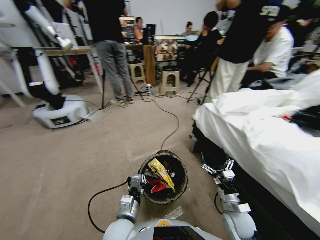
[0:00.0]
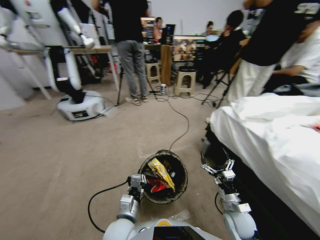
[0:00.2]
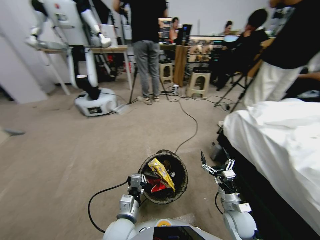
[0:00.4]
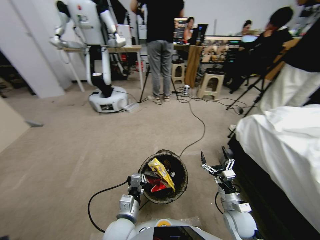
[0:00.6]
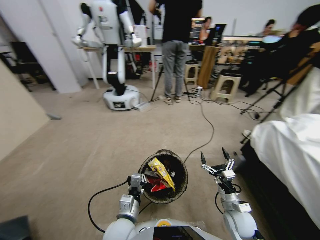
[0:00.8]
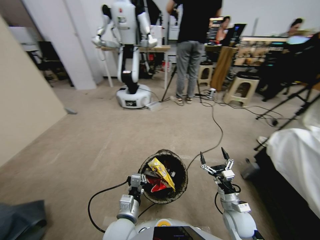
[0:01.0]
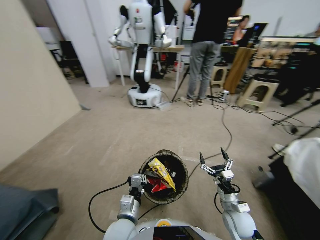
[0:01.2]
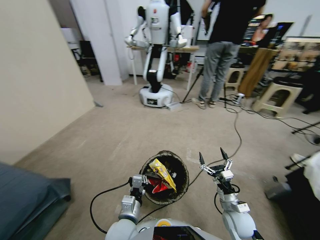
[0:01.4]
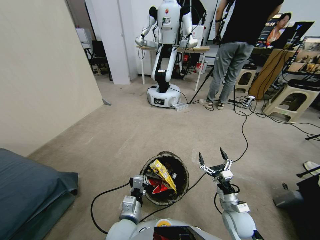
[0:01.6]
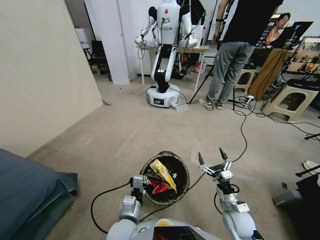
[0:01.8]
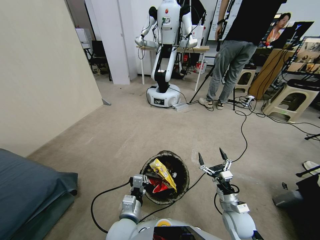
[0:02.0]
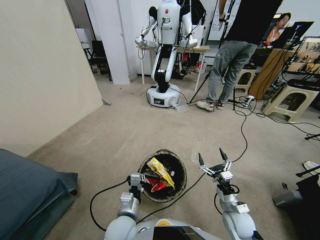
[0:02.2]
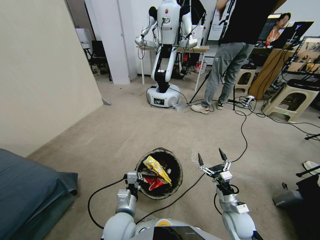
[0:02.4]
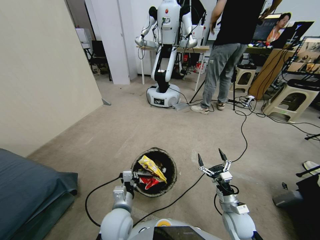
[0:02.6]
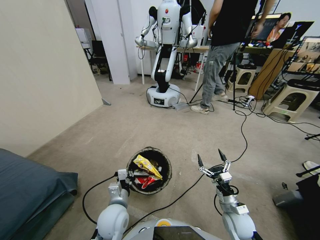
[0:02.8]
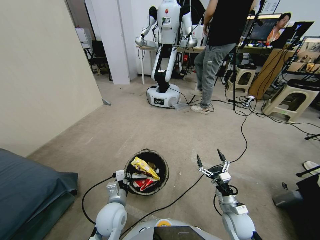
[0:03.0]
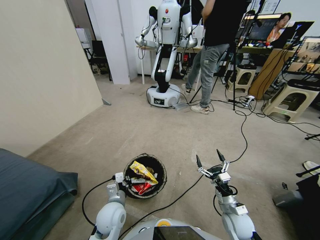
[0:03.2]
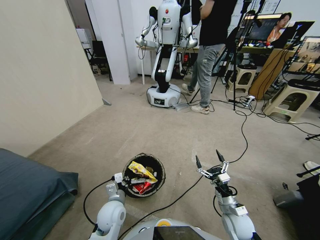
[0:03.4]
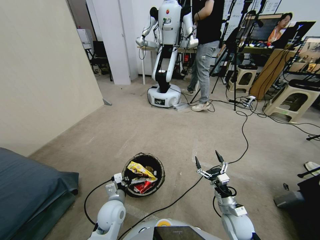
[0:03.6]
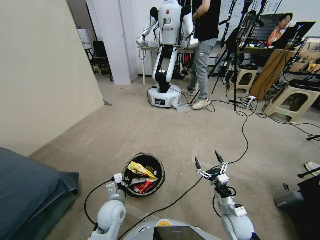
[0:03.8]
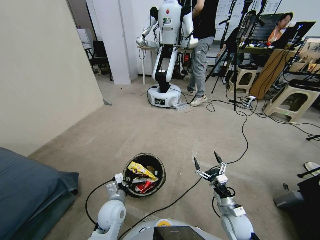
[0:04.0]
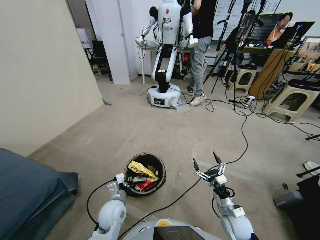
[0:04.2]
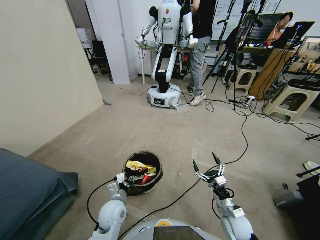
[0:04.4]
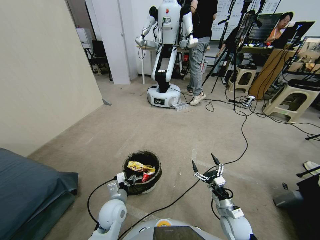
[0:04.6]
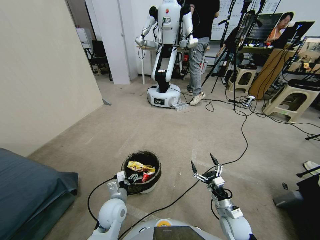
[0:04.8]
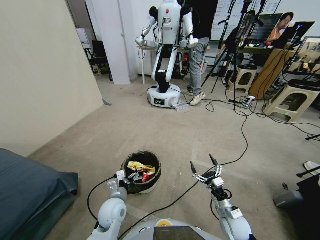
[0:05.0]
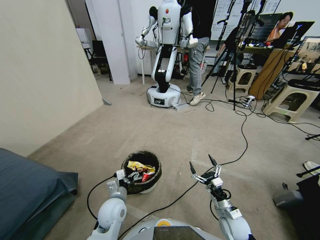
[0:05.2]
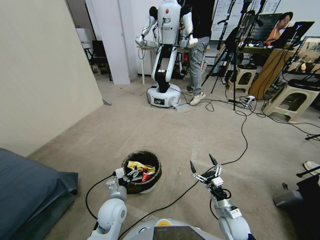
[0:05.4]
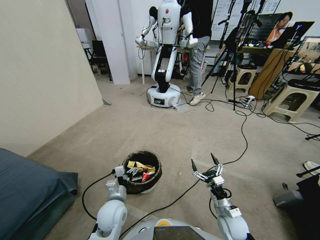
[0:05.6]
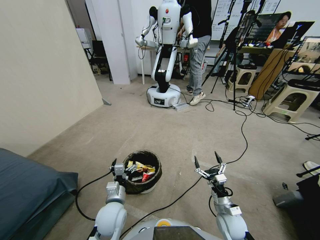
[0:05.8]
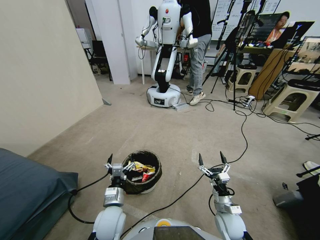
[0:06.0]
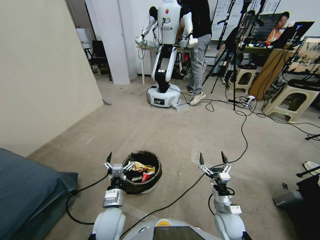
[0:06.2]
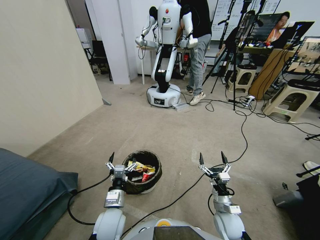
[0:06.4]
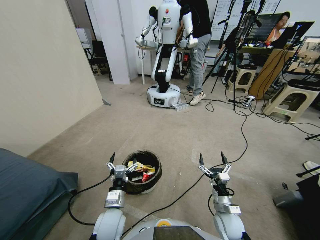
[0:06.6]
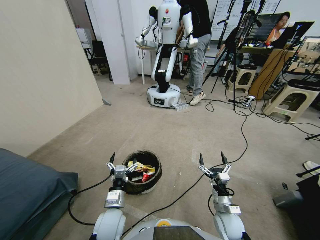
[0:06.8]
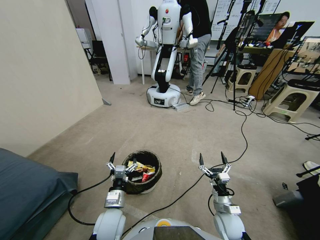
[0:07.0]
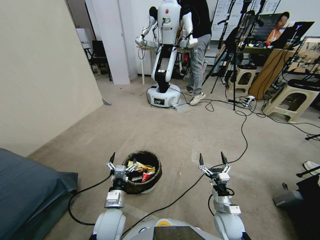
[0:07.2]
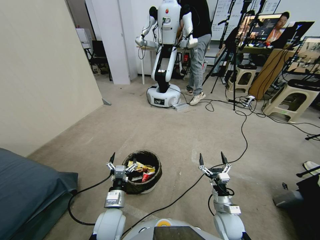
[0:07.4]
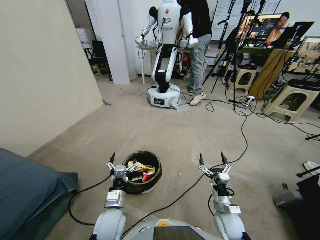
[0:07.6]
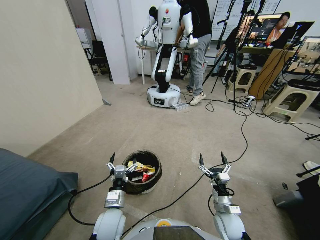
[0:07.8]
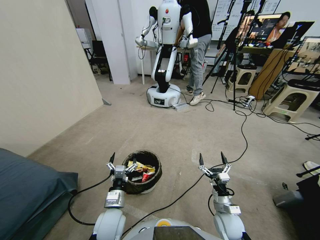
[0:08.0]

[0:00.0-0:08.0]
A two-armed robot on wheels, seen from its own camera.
Task of the whole recording: Pick up the trash bin, then pick up the garbage from the floor and place it into the trash bin.
0:01.6 to 0:03.2: The left gripper goes approximately 10 cm to the left and forward.
0:03.2 to 0:04.8: The left gripper opens up.
0:06.4 to 0:08.0: Both grippers stay put.
